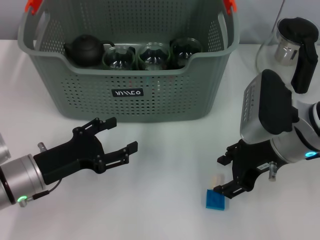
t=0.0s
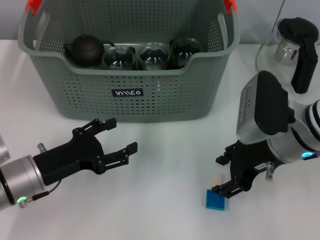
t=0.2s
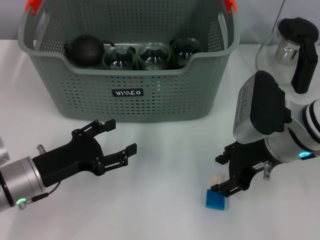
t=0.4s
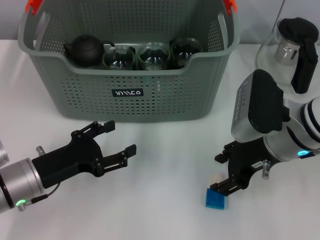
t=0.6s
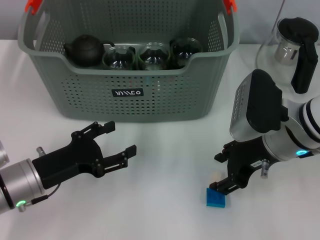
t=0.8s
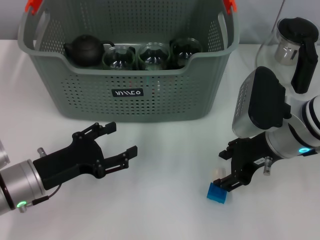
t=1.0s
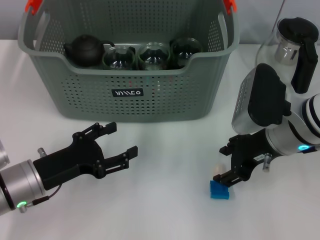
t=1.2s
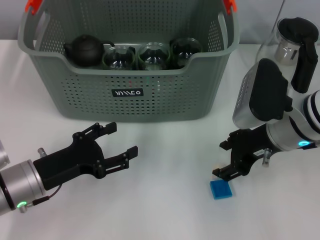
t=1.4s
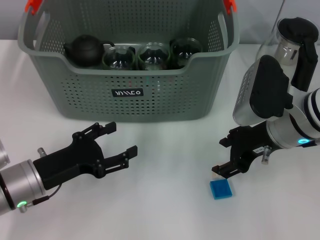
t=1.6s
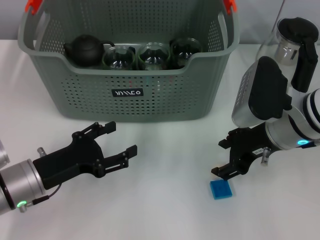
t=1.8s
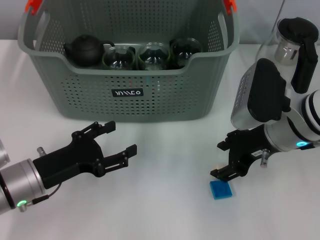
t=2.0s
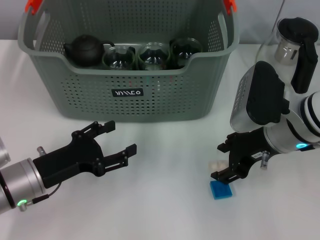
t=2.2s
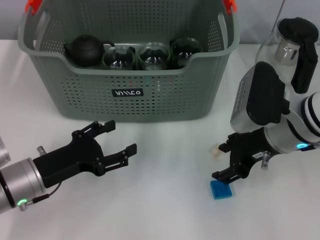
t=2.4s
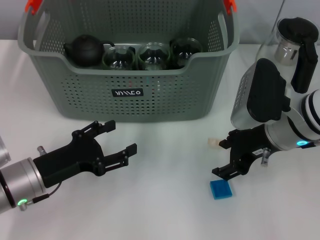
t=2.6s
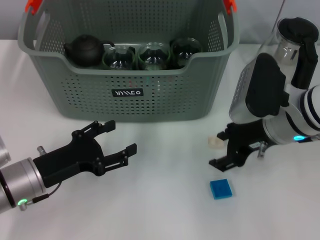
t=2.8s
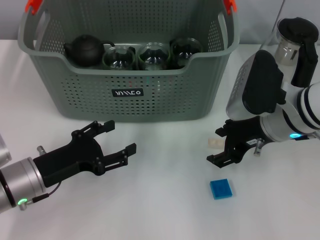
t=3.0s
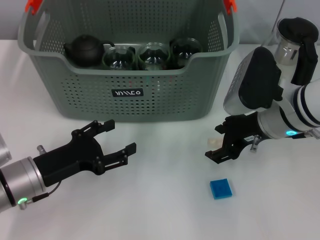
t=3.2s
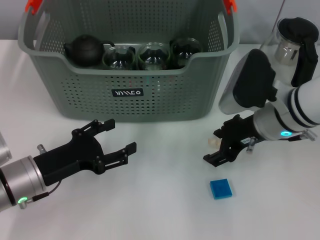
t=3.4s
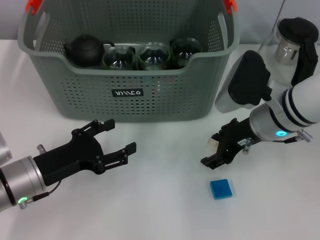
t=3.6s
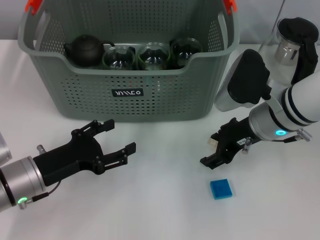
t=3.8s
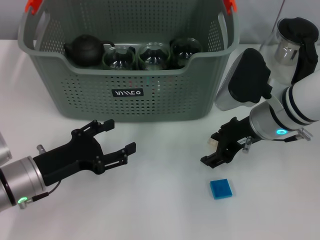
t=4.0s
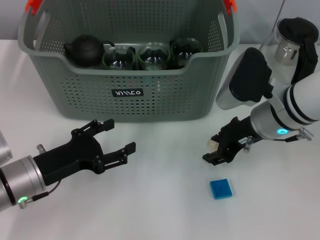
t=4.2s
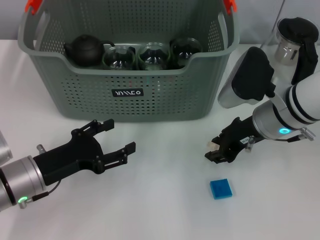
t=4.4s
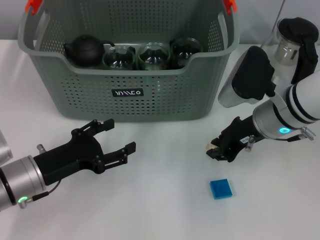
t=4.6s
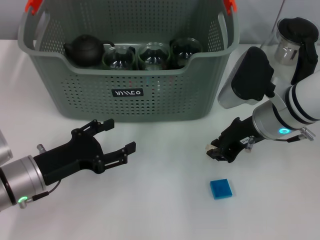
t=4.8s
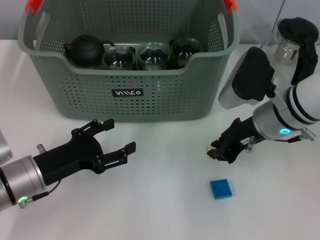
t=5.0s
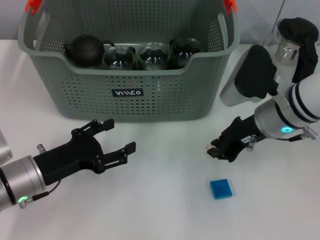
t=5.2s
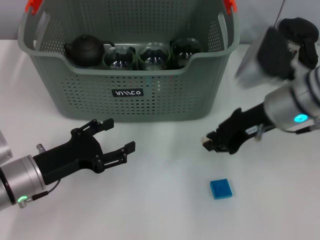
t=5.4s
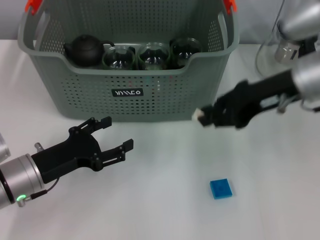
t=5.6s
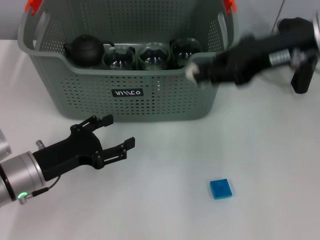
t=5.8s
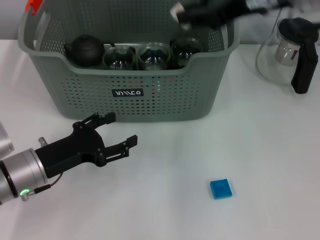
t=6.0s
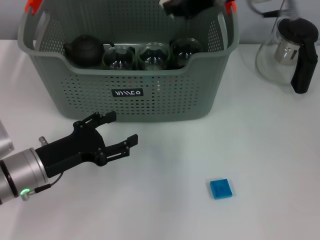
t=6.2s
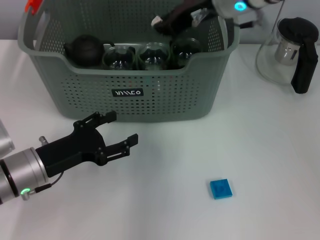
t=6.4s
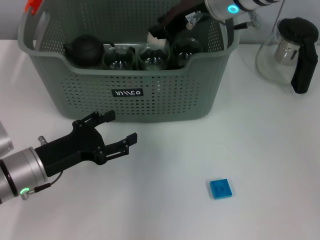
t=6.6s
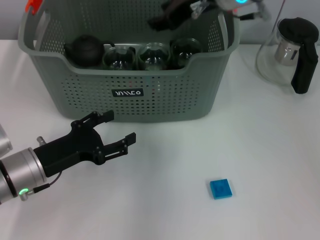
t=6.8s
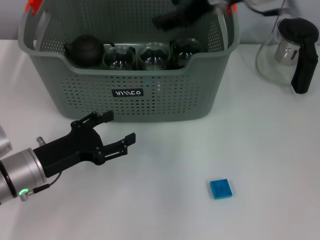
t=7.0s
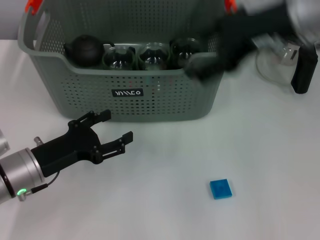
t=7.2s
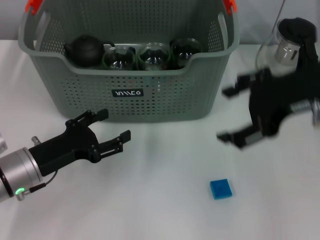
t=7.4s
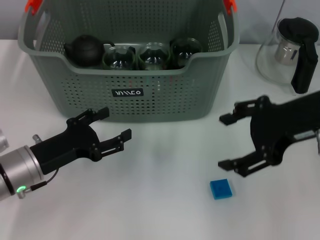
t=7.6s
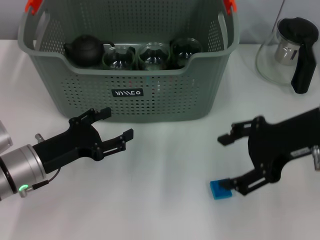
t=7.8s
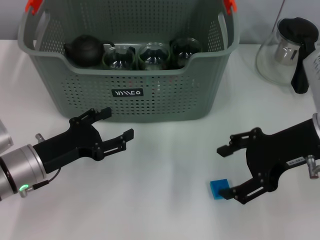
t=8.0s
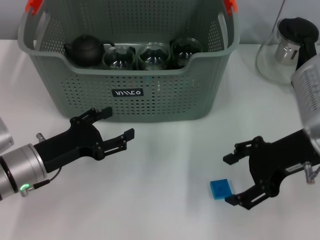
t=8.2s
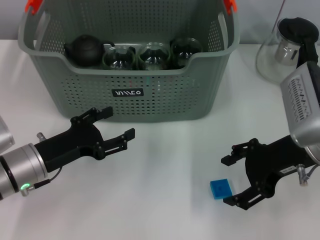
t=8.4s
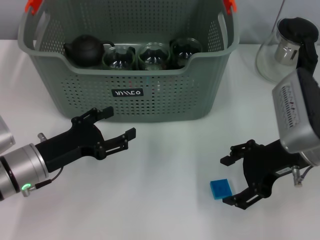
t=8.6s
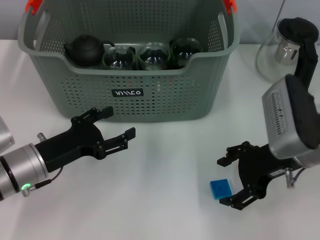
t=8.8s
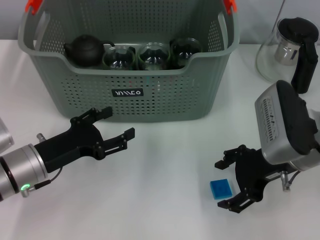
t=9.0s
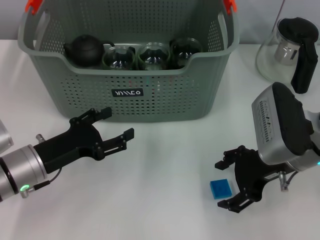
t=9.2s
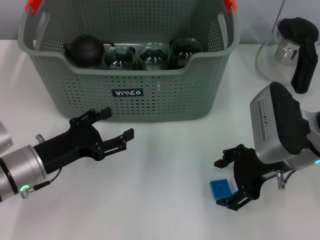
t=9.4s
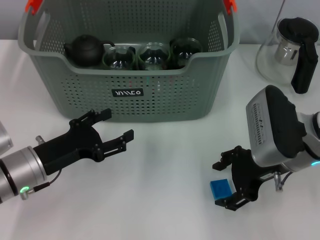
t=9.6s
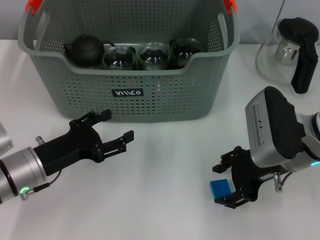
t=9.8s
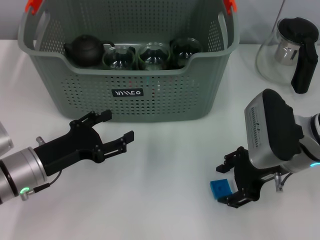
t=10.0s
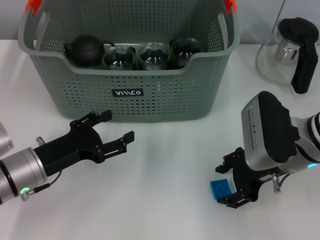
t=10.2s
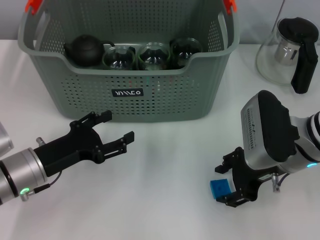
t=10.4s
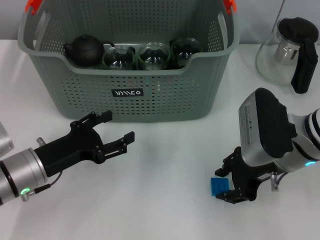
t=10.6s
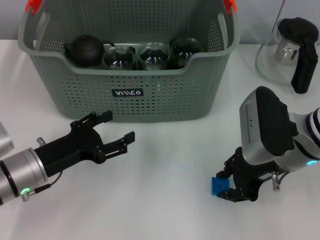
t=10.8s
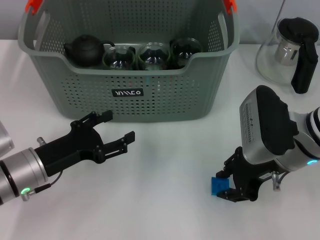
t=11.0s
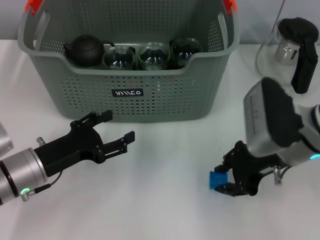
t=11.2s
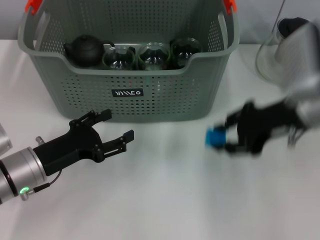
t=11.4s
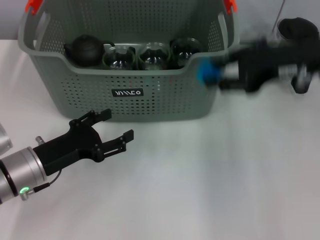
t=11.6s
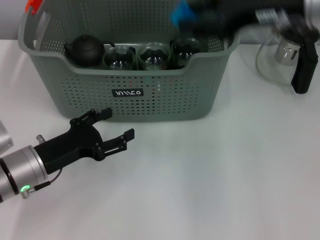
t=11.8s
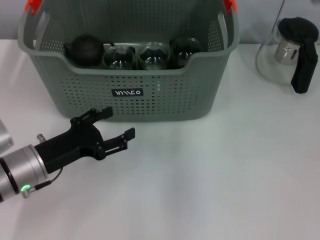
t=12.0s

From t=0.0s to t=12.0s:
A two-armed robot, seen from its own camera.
Task of the whole recording: pick up the teacup on the table and place it into the storage bin, pick up the block on the table and place it into the storage bin.
Step, from t=0.0s to t=4.8s: Grasp the white block with right gripper.
Step, from t=5.0s to t=6.6s: Place the white block in the storage box with right gripper.
Step, from t=6.8s to t=10.6s: Grasp the dark blue block with right gripper.
From t=0.0s to t=1.6s: The grippers move only a little.
From t=1.6s to t=3.0s: Neither gripper changes place.
From t=3.0s to t=4.4s: There are only small adjustments of the grippers.
From t=4.4s to t=6.0s: The right gripper goes some 20 cm upward, and closes its fingers.
From t=6.0s to t=7.6s: The right gripper travels backward and downward by roughly 10 cm, and opens.
From t=7.6s to t=9.0s: The right gripper goes roughly 10 cm downward.
From t=9.0s to t=10.4s: The grippers move only a little.
From t=10.4s to t=12.0s: The right gripper is displaced upward and forward by some 20 cm.

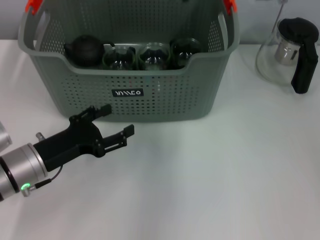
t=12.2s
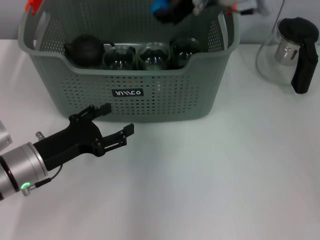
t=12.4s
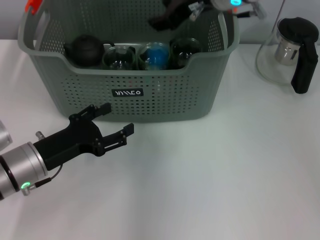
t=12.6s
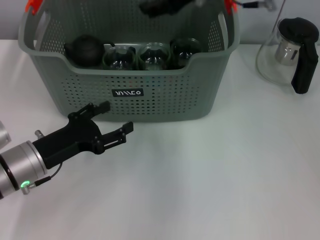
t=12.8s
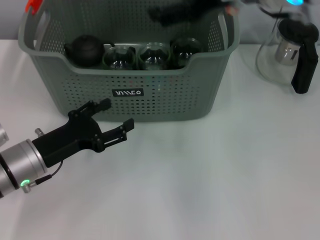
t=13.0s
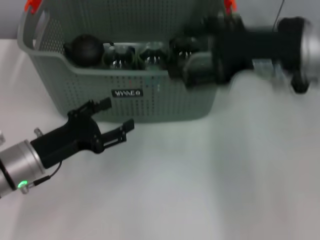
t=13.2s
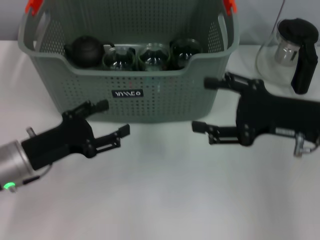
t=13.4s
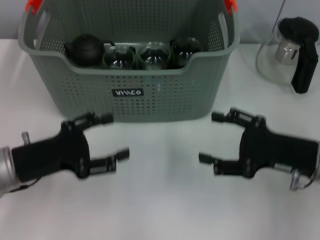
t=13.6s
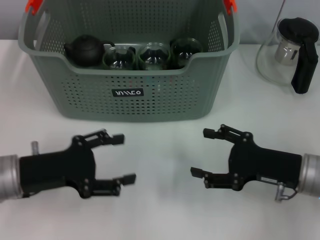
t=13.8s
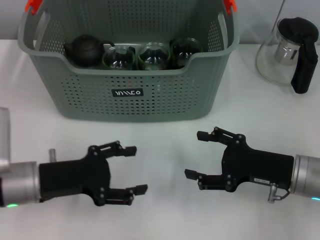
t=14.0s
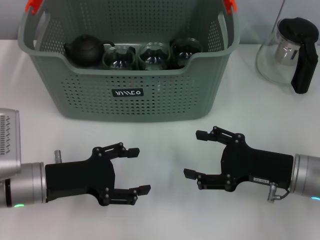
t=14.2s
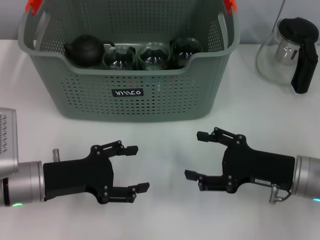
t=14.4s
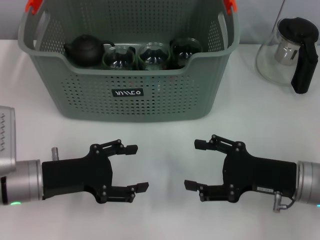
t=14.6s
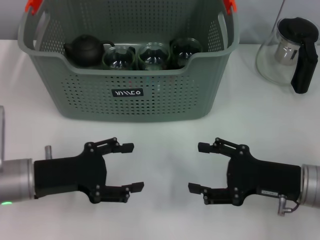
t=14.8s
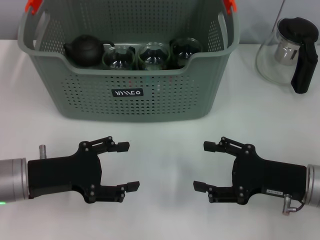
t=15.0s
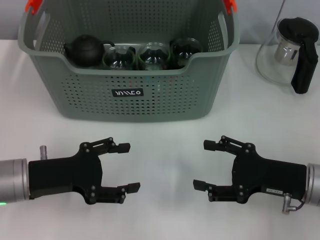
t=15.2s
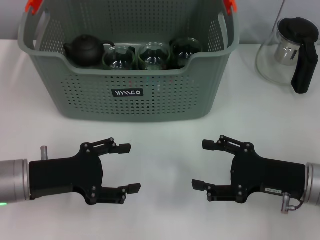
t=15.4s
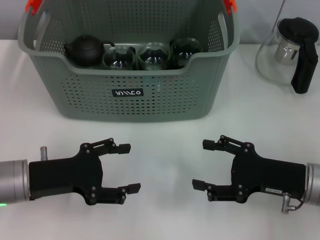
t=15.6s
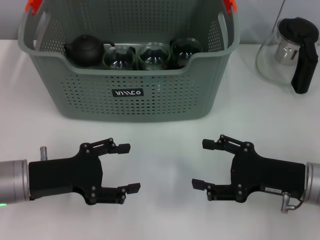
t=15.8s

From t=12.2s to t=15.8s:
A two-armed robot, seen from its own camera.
Task of the whole recording: pick up the teacup on the table and place it into the storage bin, pick up the block on the table and place it into the storage bin.
From t=12.2s to t=14.0s: The right gripper goes roughly 30 cm downward, backward and to the right, and opens its fingers.
From t=14.0s to t=15.8s: The grippers stay close to where they were, moving slightly.

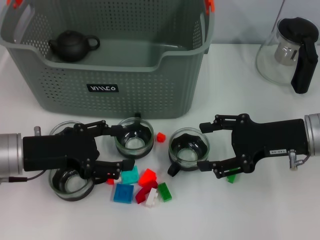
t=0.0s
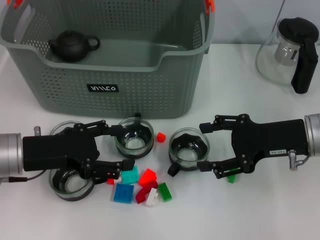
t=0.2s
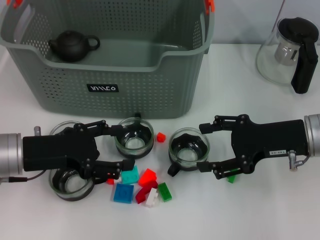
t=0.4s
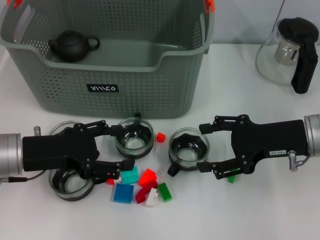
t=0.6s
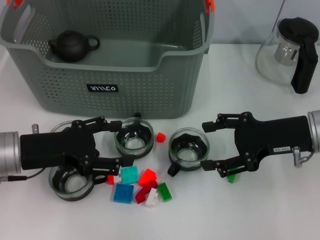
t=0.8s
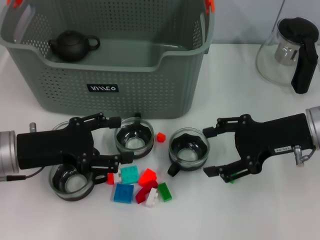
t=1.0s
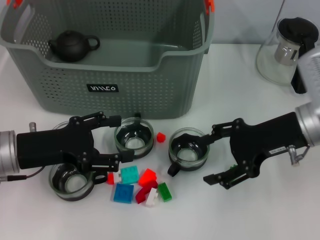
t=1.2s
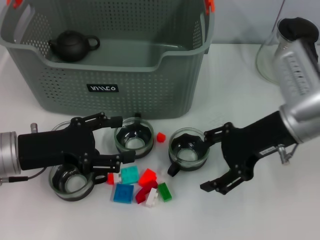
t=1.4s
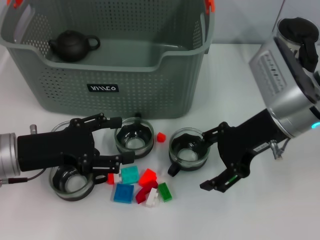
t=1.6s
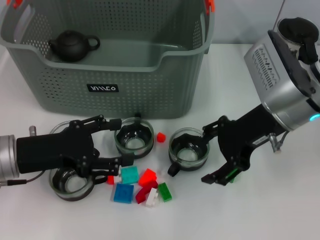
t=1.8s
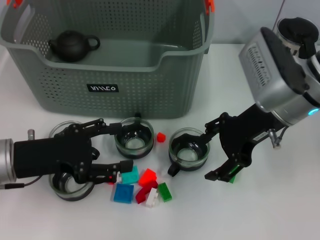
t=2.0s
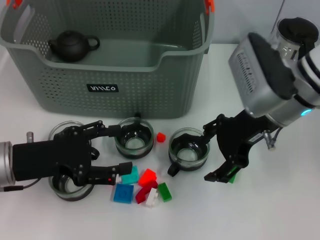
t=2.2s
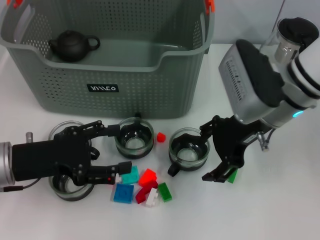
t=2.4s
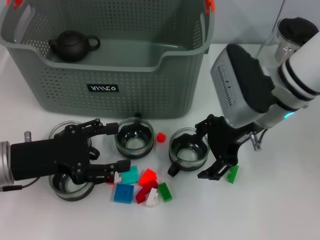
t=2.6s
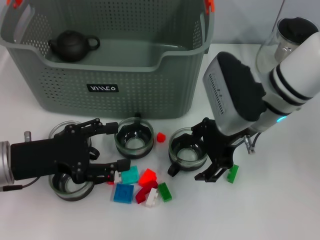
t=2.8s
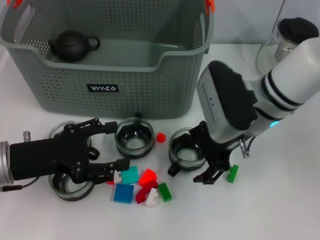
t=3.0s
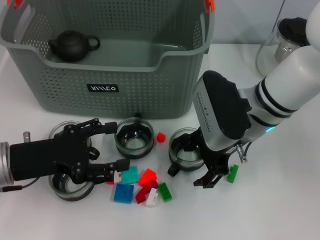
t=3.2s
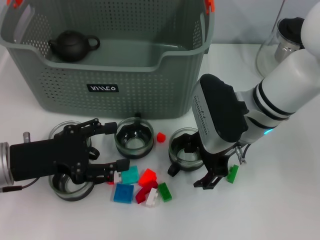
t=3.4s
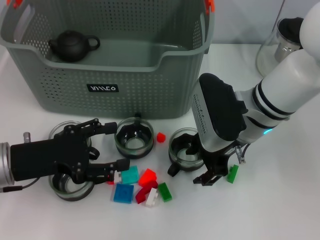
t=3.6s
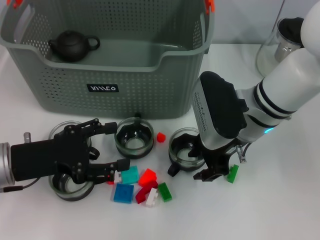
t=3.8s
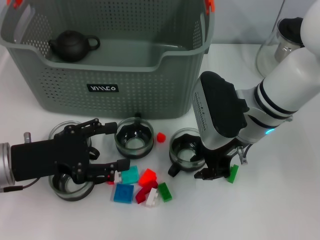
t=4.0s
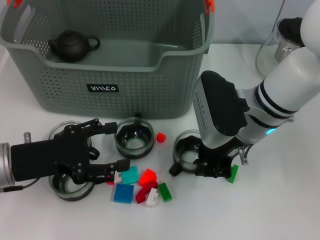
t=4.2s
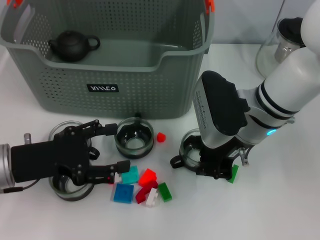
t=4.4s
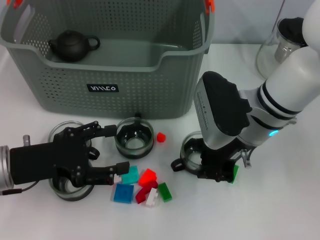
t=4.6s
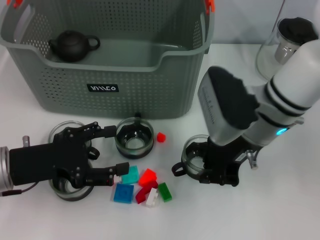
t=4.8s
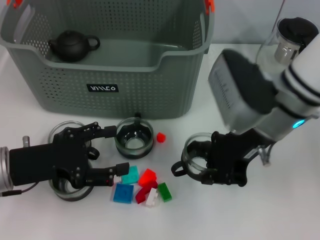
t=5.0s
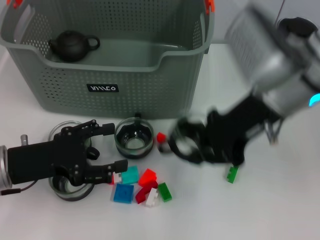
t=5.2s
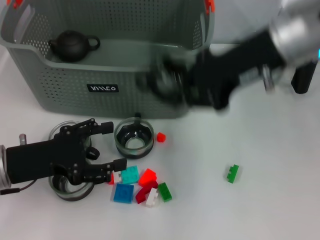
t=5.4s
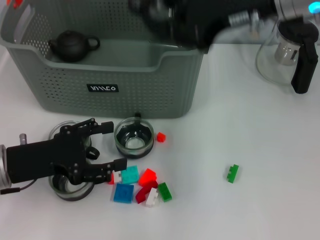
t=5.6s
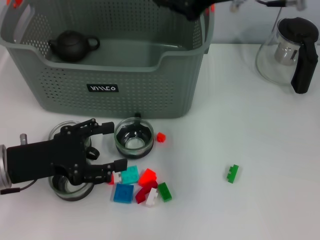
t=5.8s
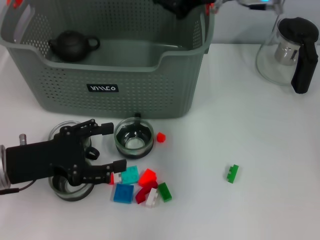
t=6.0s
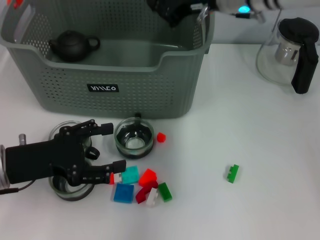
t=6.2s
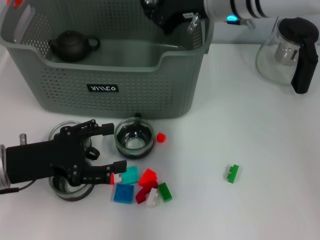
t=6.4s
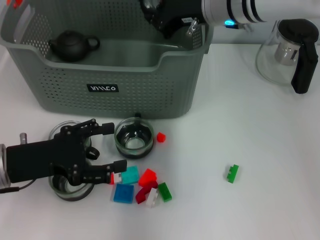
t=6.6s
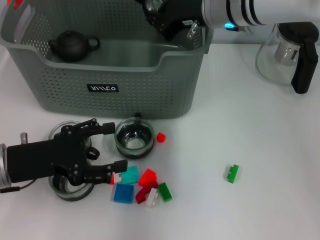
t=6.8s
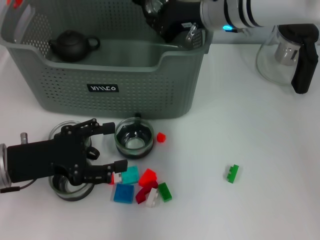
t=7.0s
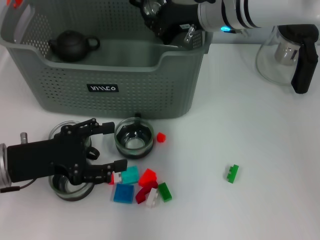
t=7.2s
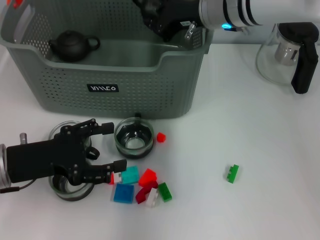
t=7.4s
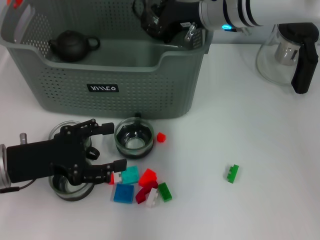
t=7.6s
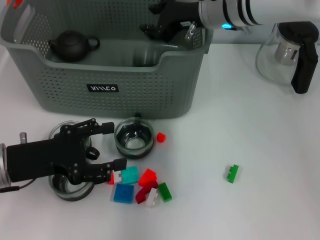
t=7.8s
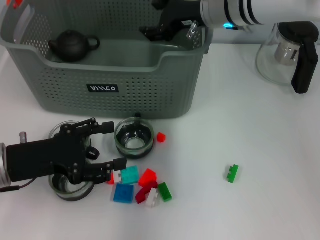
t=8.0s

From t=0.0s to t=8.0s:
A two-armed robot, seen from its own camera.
Task of the whole recording: pick up the teacup on the table and place it into the storage bin, pick up the block on the table and place it into the storage bin.
Step, from t=0.0s to t=4.2s: Grasp the cup with right gripper.
Step, from t=4.4s to t=7.8s: Place the cup in the storage box with right gripper.
From t=0.0s to t=1.6s: The right gripper travels to the left by about 5 cm.
From t=1.6s to t=3.2s: The right gripper moves to the left, roughly 5 cm.
From t=3.2s to t=4.8s: The right gripper closes its fingers.
From t=4.8s to t=6.4s: The right gripper travels forward and upward by roughly 15 cm.
From t=6.4s to t=8.0s: The right gripper opens up.
